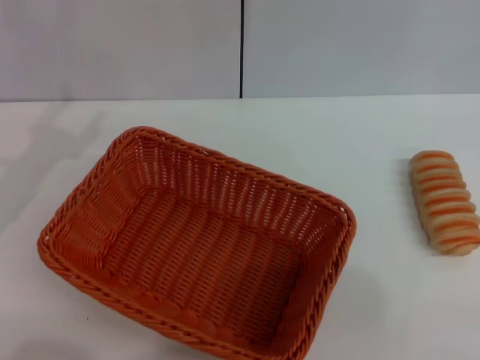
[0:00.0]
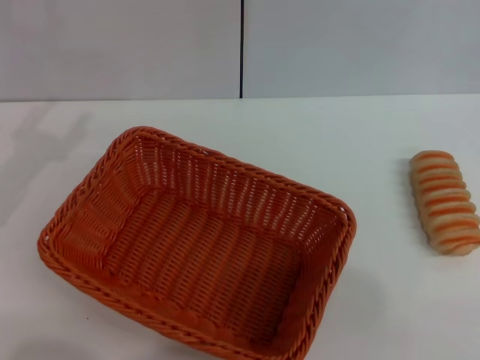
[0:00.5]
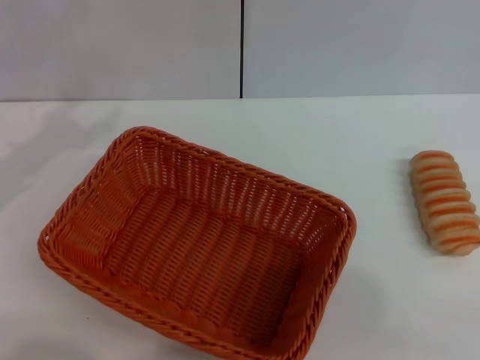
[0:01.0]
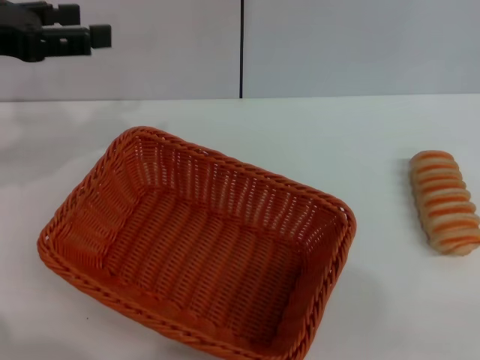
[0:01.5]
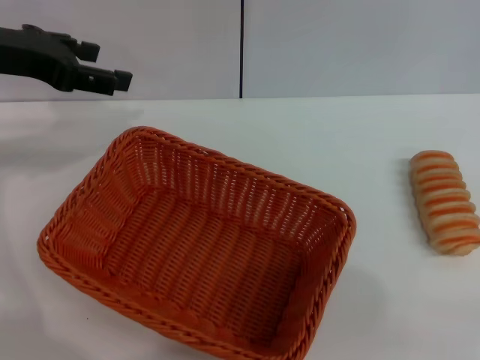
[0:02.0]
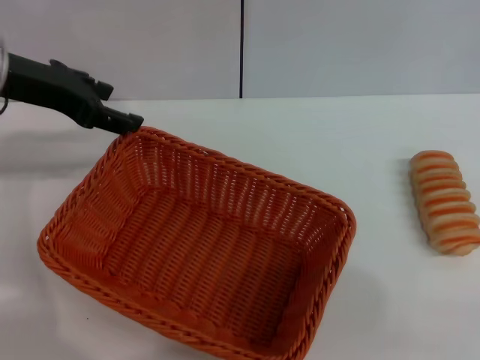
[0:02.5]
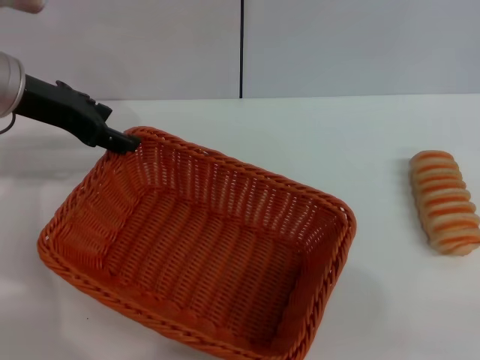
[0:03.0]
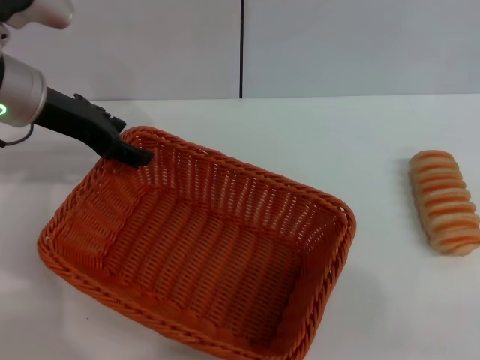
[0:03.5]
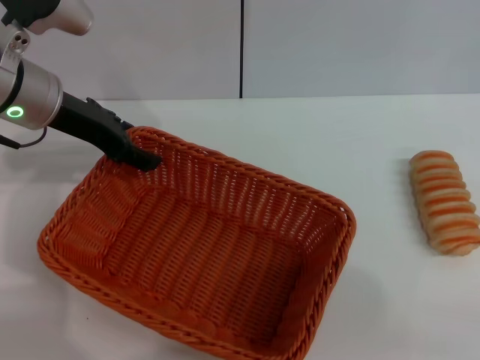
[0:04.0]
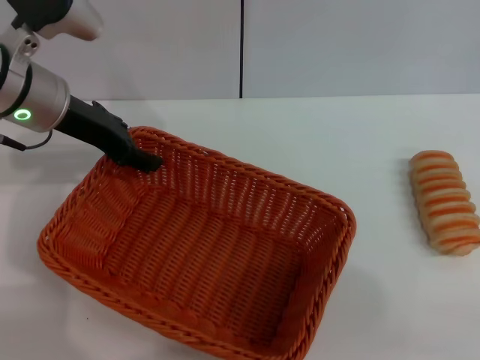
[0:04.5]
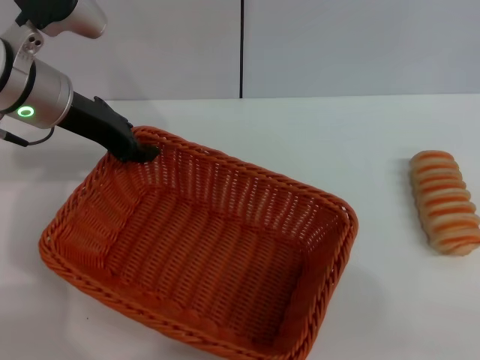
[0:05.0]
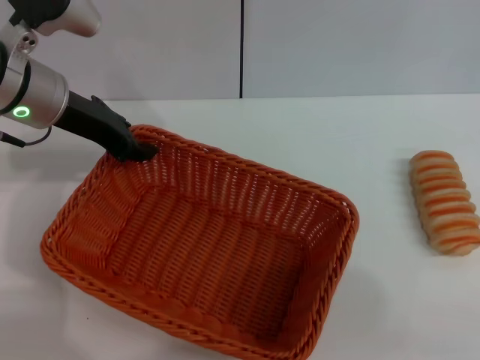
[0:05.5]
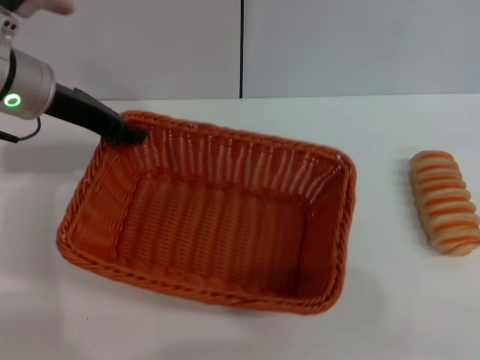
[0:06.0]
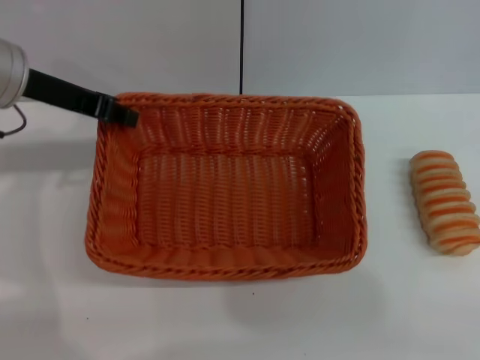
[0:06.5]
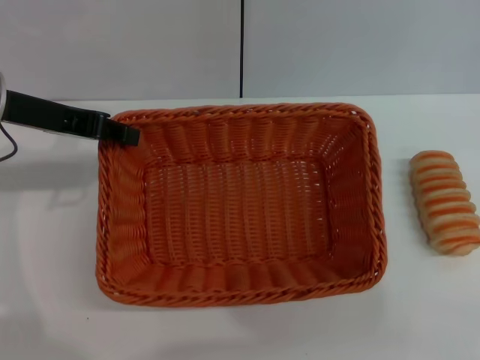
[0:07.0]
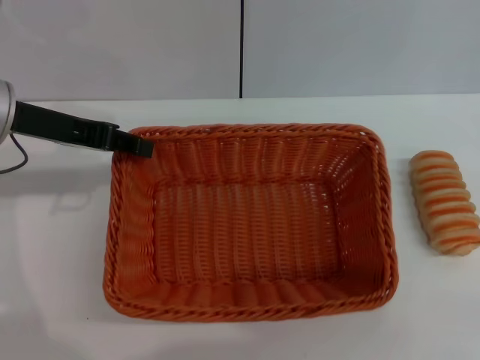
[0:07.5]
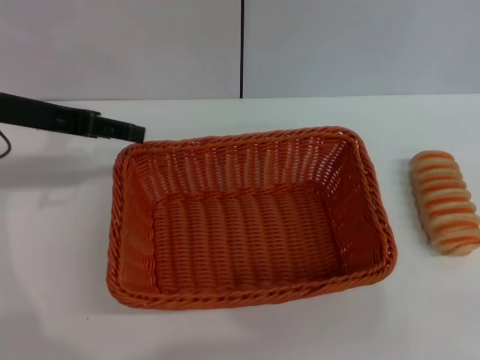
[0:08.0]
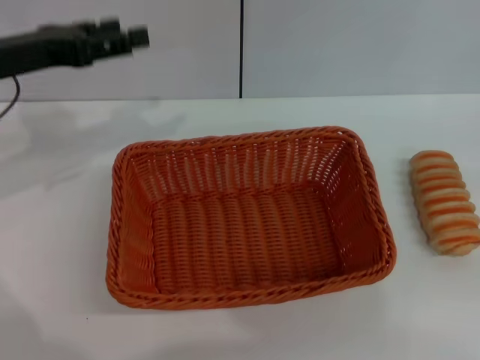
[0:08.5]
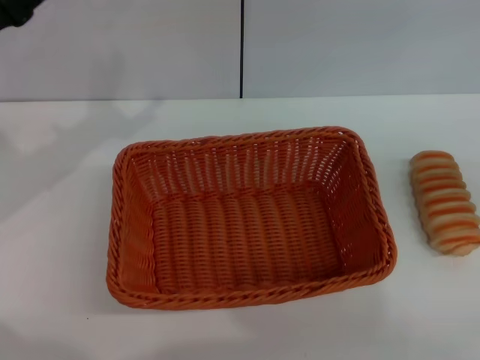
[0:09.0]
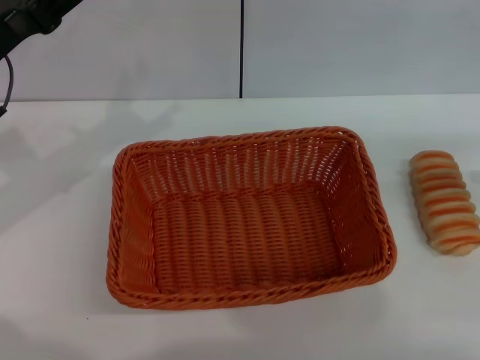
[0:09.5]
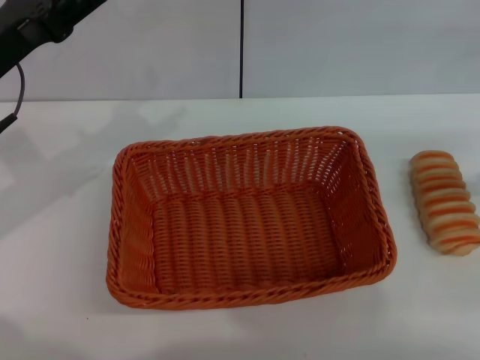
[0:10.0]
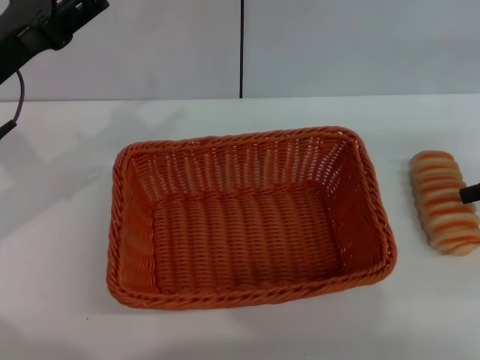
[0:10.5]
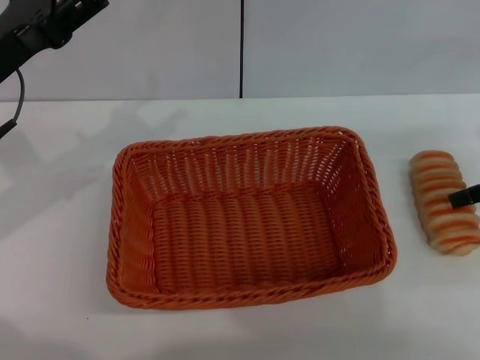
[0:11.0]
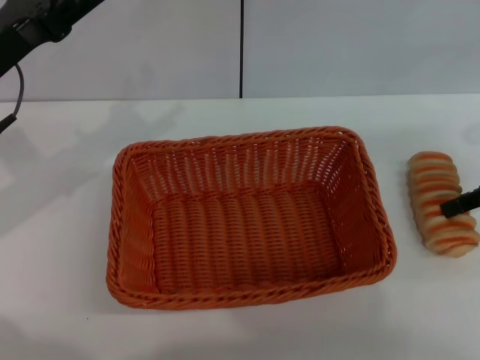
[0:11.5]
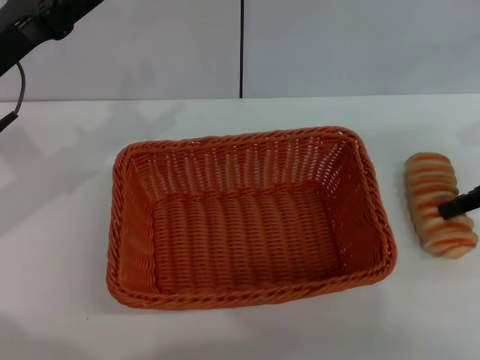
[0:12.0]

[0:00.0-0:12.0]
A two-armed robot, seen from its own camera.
Step, 0:00.0 to 0:06.0: Pick up the light basket with the left gripper.
Step, 0:06.5 to 0:08.0: Place the light basket in the center of view with the left gripper.
0:00.0 to 0:02.0: The left gripper heads upward and forward, covering some 15 cm.
0:02.0 to 0:04.0: The left gripper heads downward and to the right, covering approximately 10 cm.
0:04.0 to 0:06.0: The left gripper closes its fingers.
0:06.0 to 0:08.0: The left gripper moves approximately 5 cm, and opens its fingers.
0:08.0 to 0:10.0: The right gripper travels forward, upward and to the left by some 15 cm.
0:10.0 to 0:12.0: The right gripper moves to the left, roughly 5 cm, and closes its fingers.

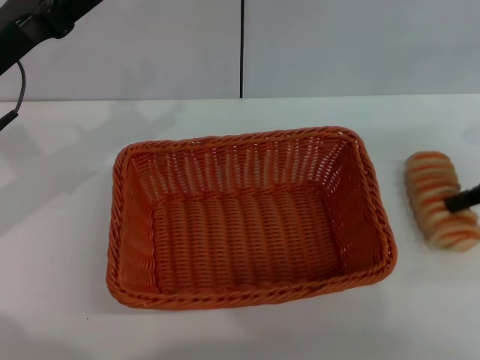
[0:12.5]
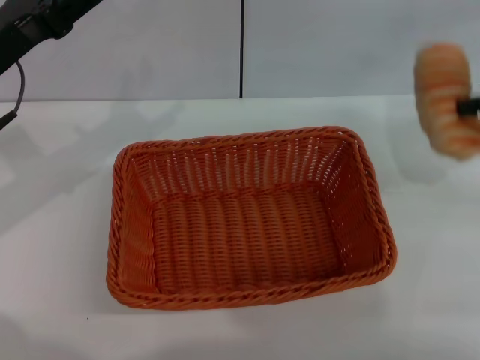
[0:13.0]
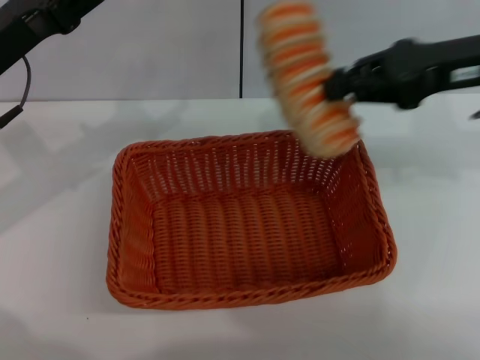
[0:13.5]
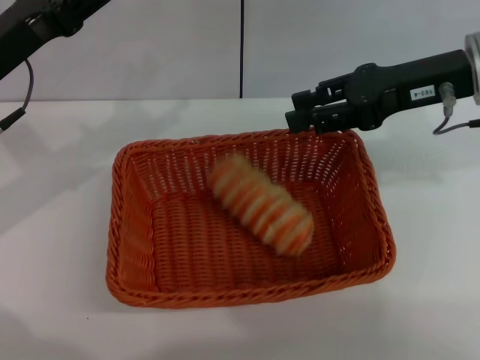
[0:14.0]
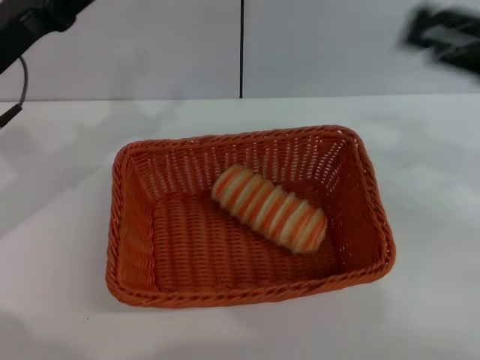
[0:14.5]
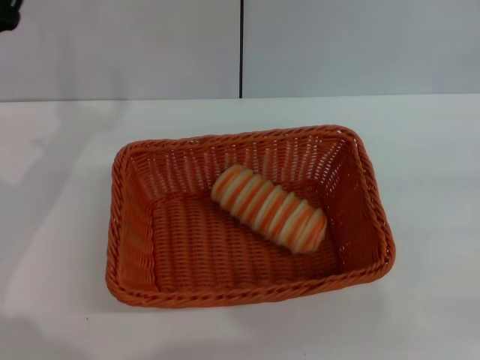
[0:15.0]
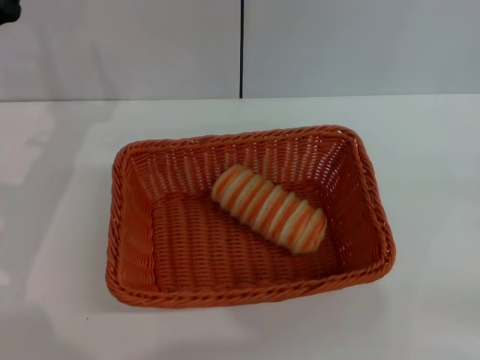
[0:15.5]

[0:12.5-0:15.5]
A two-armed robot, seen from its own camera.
Step, 0:13.0 to 0:14.0: Place the long bread into the light basket with the right gripper.
0:12.5 to 0:14.0: The right gripper goes some 15 cm to the left and upward.
0:14.0 to 0:15.5: The right gripper goes approximately 30 cm to the right, backward and downward, and opens its fingers.

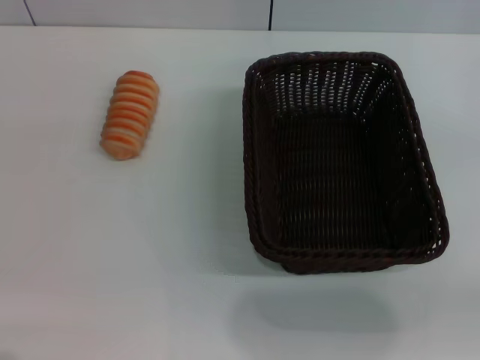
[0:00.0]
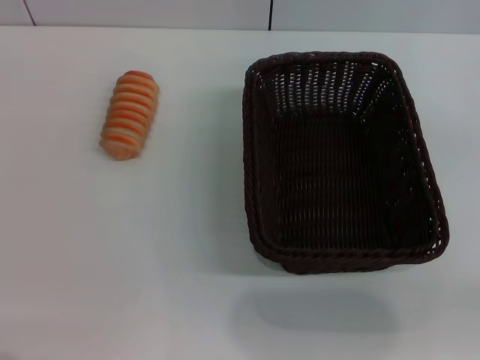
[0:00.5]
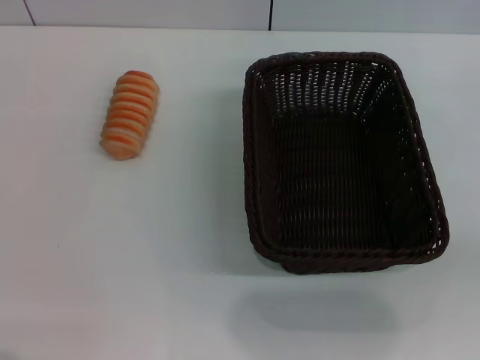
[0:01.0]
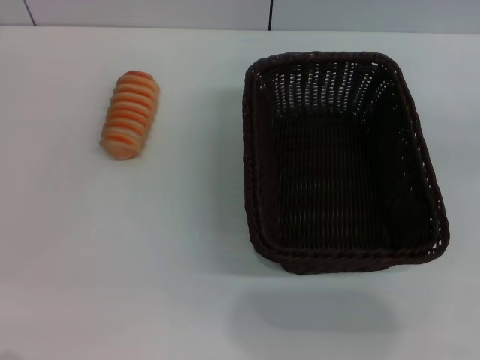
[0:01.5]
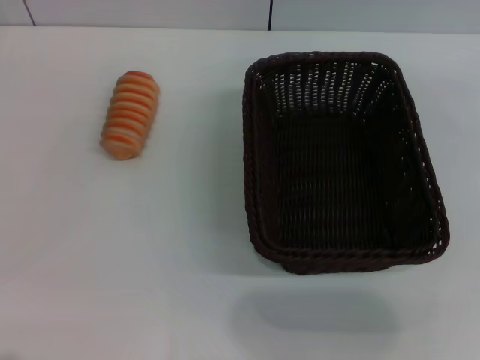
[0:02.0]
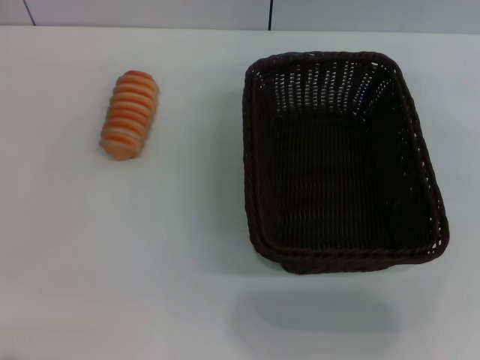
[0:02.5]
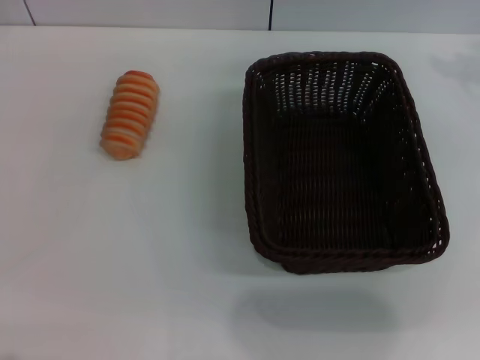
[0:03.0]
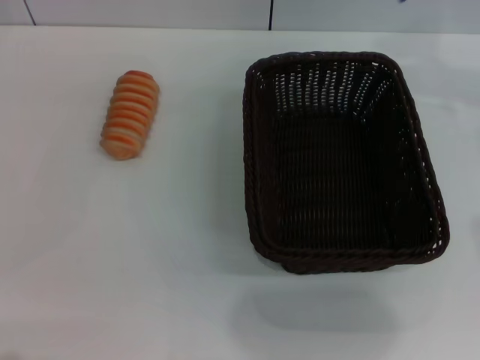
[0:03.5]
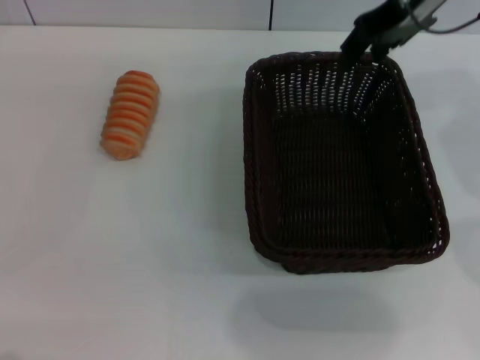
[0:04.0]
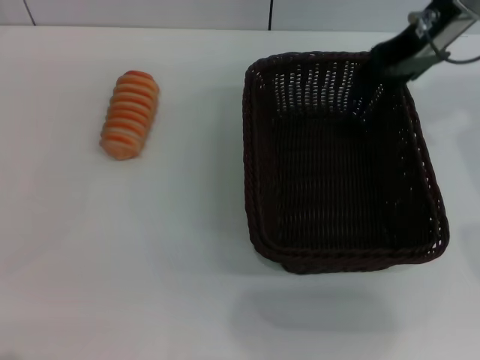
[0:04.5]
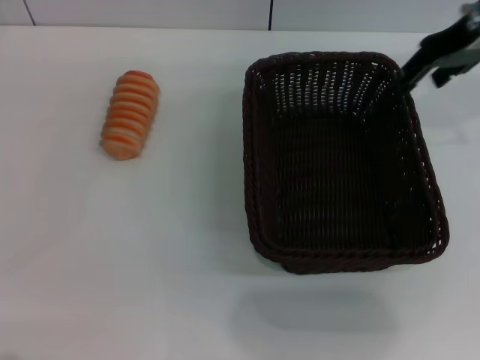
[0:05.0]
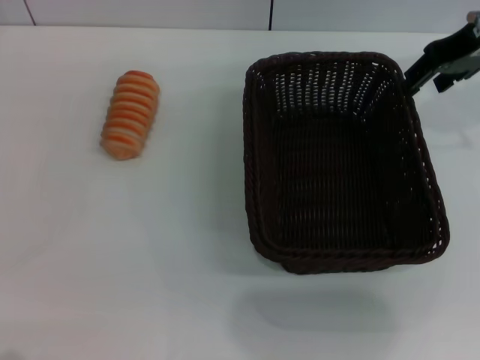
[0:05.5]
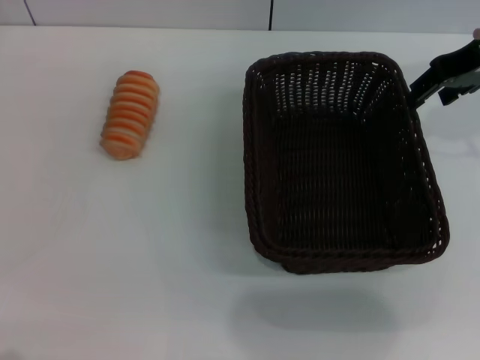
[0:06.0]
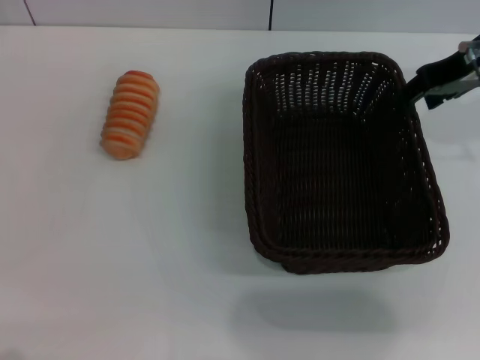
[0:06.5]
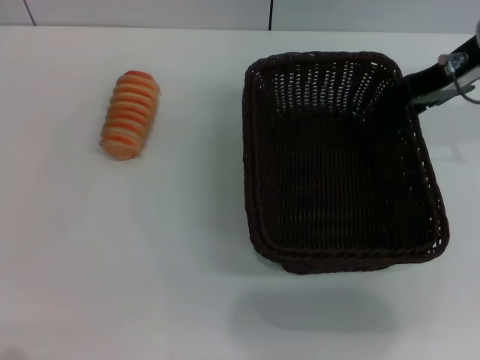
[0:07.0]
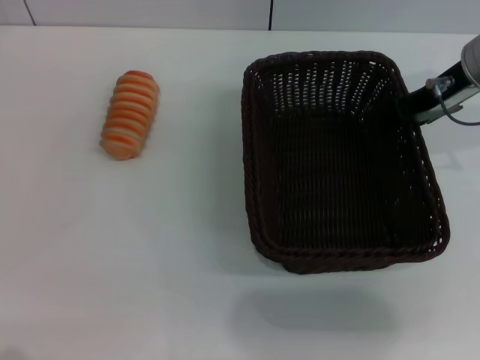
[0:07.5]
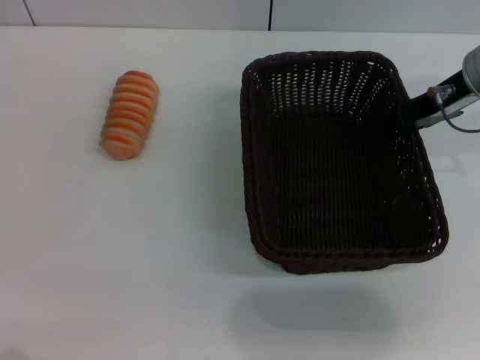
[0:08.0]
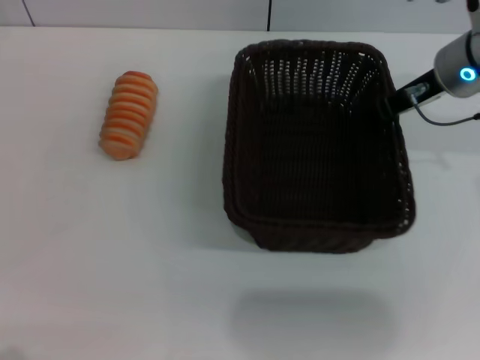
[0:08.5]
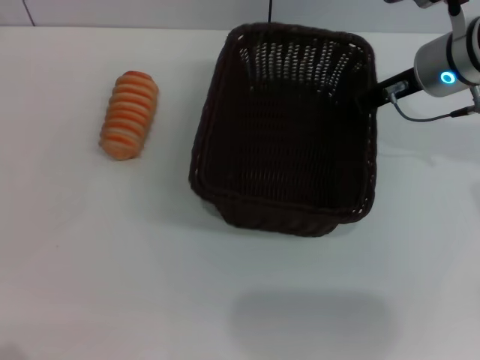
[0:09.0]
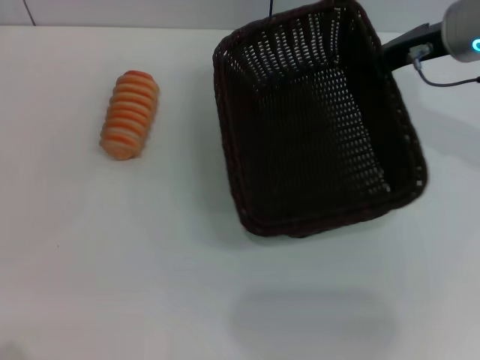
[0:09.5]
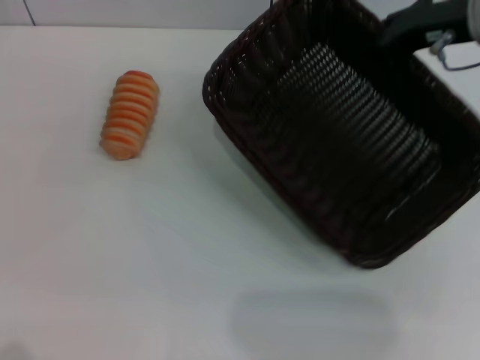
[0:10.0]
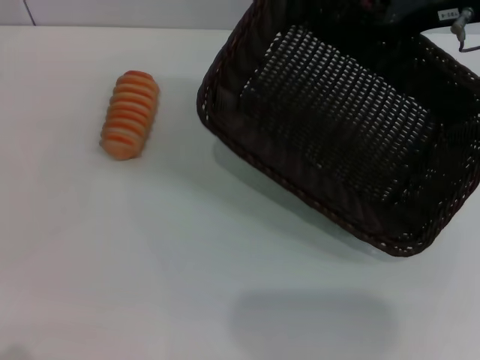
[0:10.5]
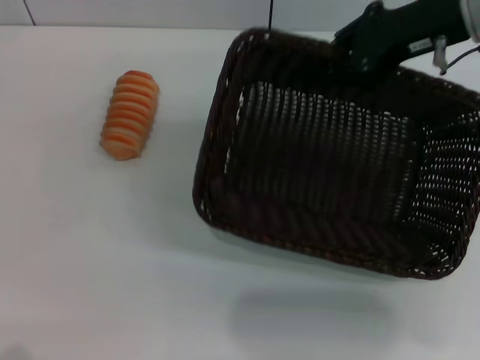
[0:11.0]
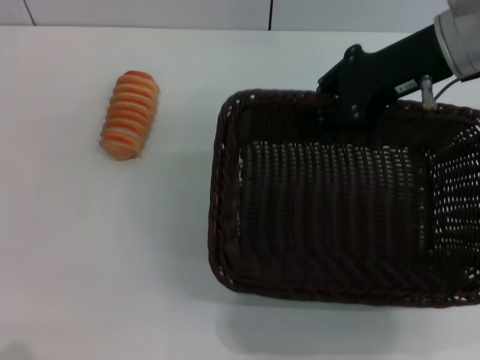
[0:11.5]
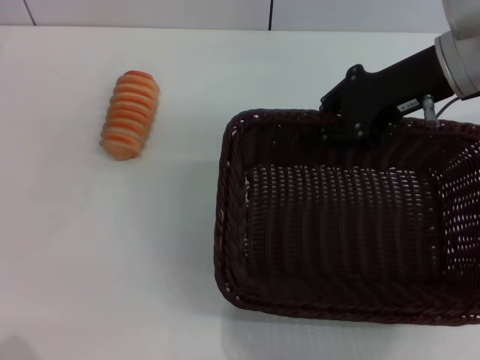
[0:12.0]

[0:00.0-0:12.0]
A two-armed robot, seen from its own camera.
Step, 0:00.0 to 0:09.5: Pick up the dark basket with the right gripper.
0:02.0 to 0:04.0: The right gripper shifts some 25 cm to the left.
0:04.0 to 0:06.0: The right gripper moves to the right, some 10 cm.
0:06.0 to 0:08.0: The right gripper travels downward by about 10 cm.
0:08.0 to 0:10.0: The right gripper goes roughly 5 cm upward, and closes up.
